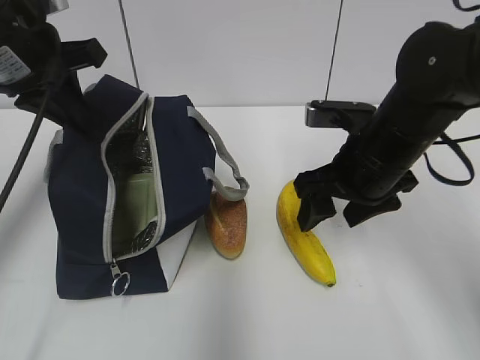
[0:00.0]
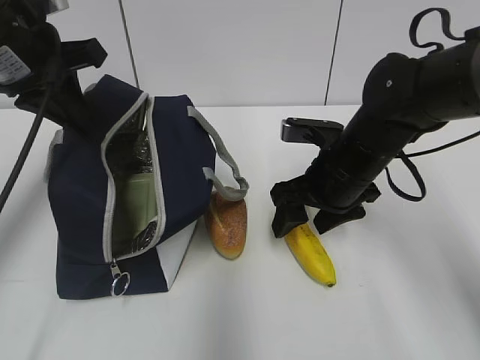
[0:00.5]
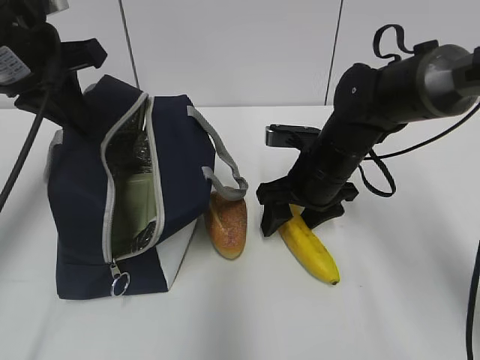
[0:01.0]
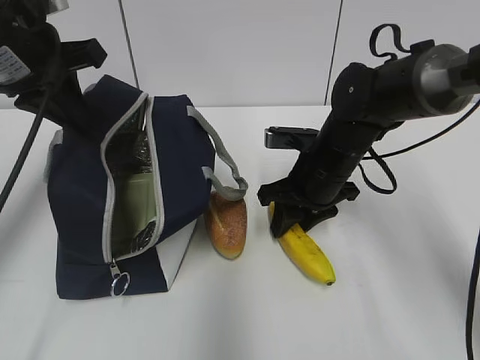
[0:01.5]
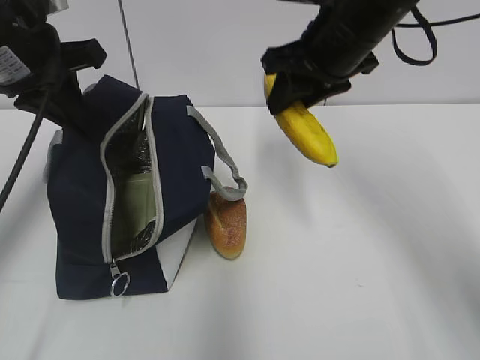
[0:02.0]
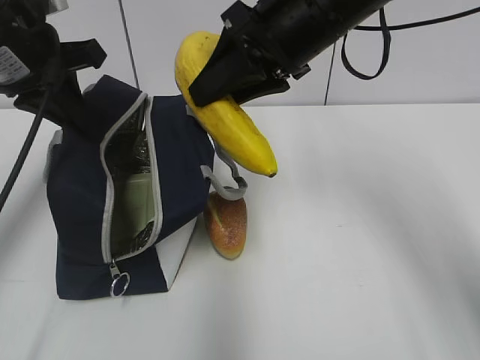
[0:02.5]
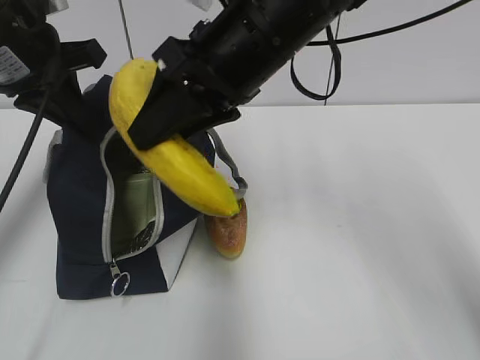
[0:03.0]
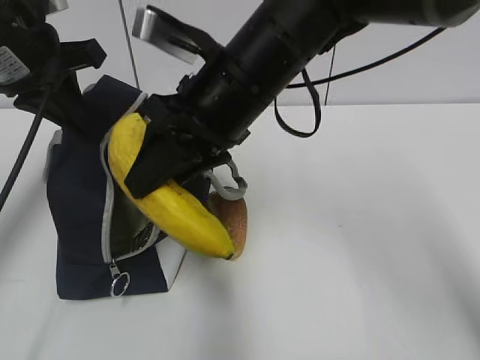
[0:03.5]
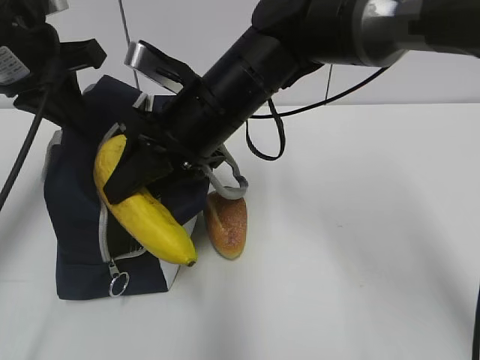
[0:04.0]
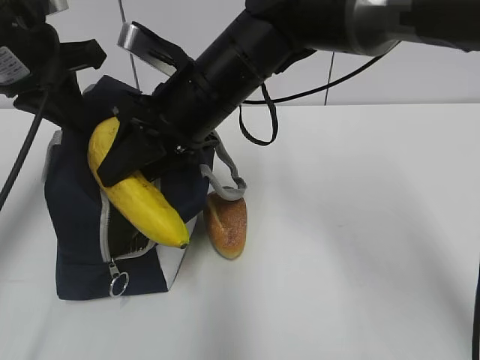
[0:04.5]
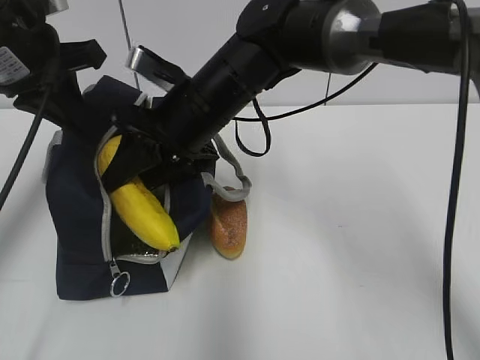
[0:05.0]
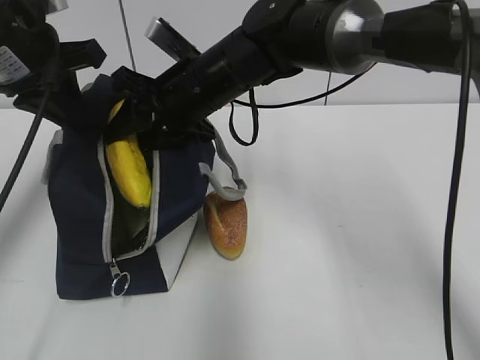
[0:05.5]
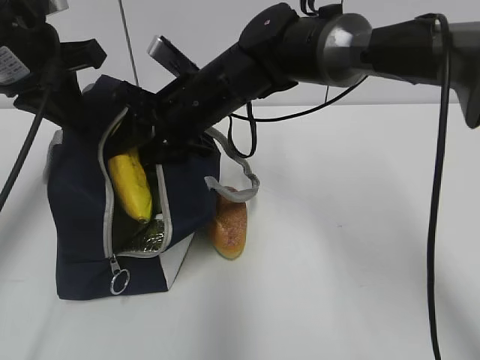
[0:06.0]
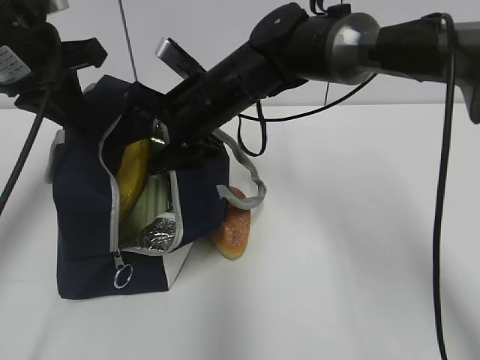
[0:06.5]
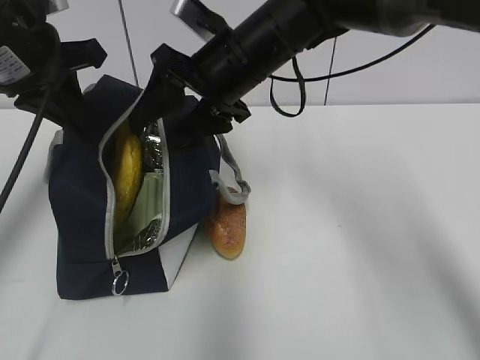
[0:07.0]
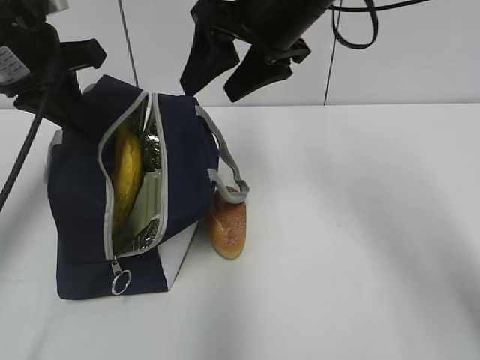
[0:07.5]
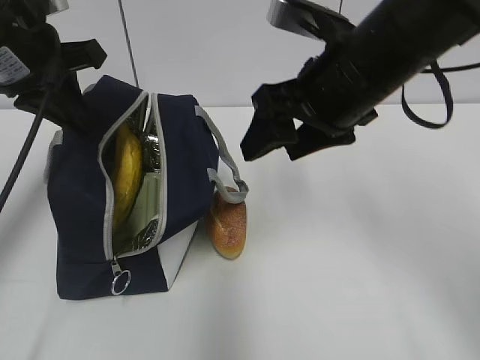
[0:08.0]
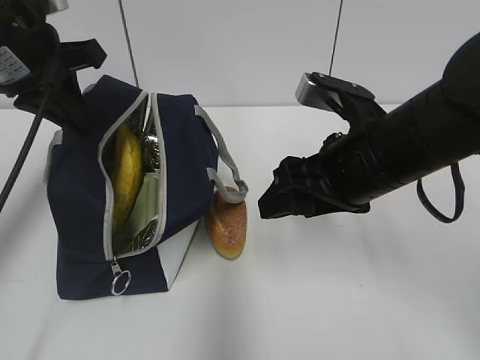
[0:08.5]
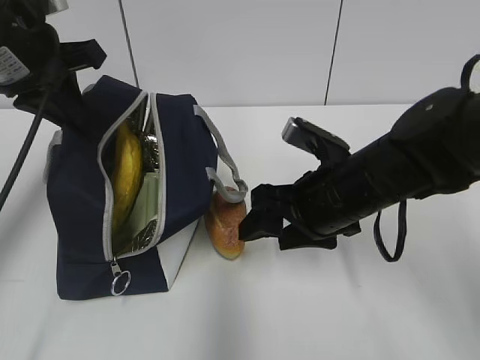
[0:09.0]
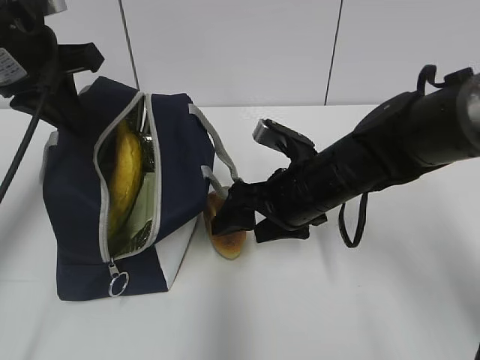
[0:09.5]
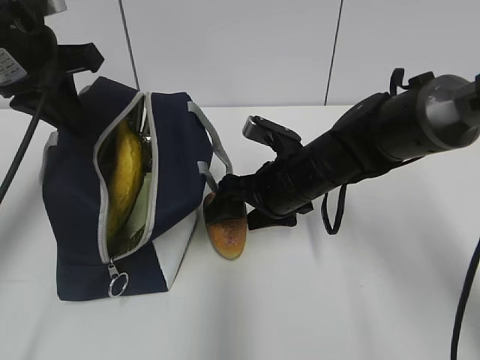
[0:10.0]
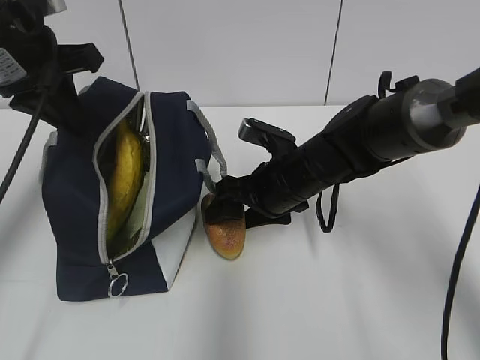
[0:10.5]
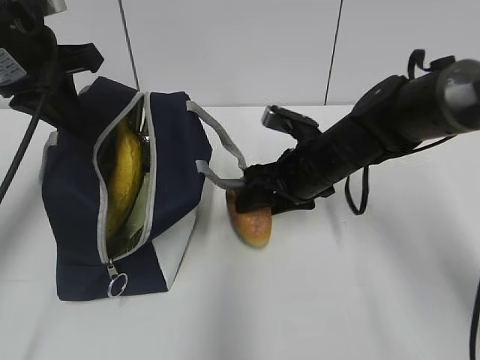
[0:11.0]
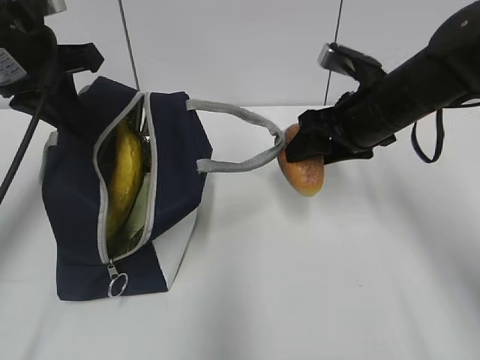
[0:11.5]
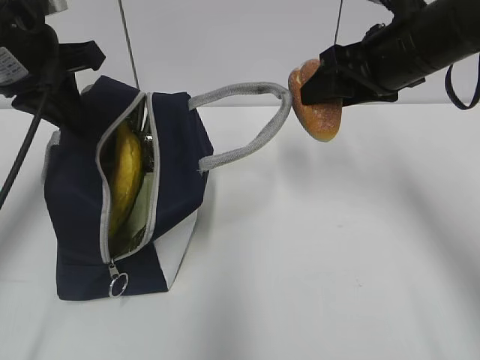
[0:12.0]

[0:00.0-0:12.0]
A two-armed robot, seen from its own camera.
0.0 to 2.0 s: The right gripper travels upward and forward by about 10 cm, and closes its fingers.
2.0 to 4.0 s: The right gripper travels to the left by roughly 15 cm.
4.0 to 6.0 s: The right gripper moves forward, about 5 cm.
6.0 to 8.0 s: The right gripper is displaced to the right, backward and upward by approximately 15 cm, and opens its fingers.
8.0 to 10.0 s: The right gripper travels downward by some 15 cm.
10.0 to 12.0 s: The right gripper goes about 20 cm upward and to the right.

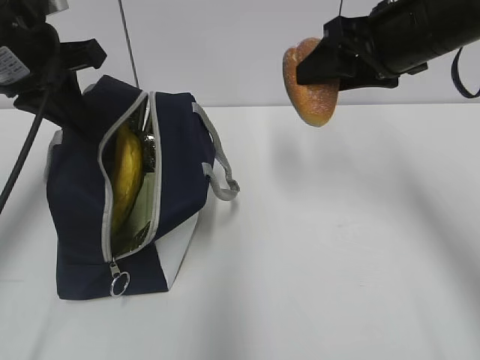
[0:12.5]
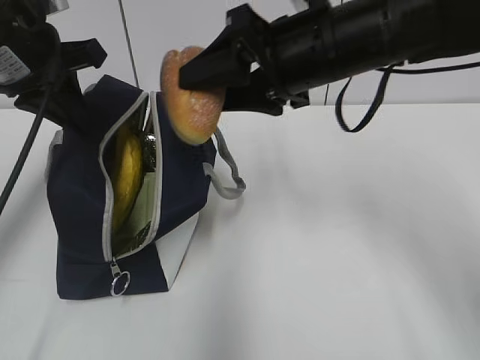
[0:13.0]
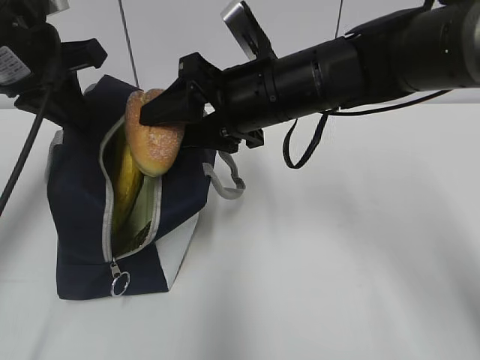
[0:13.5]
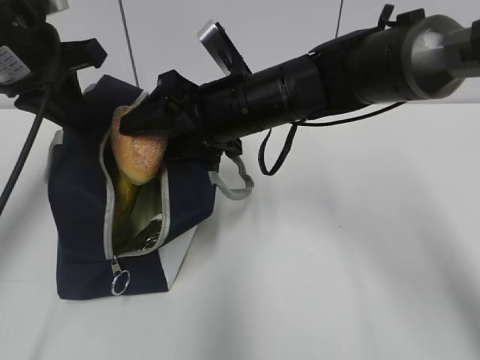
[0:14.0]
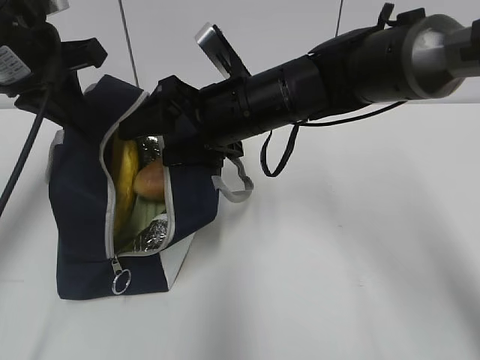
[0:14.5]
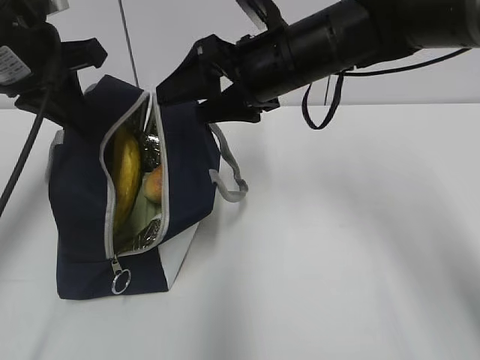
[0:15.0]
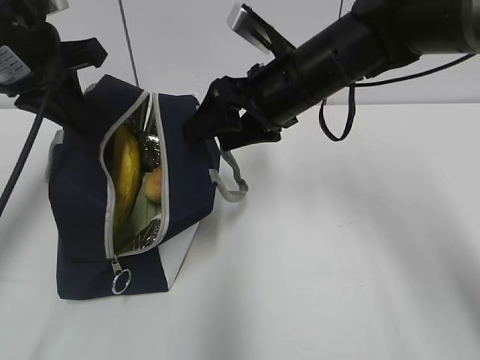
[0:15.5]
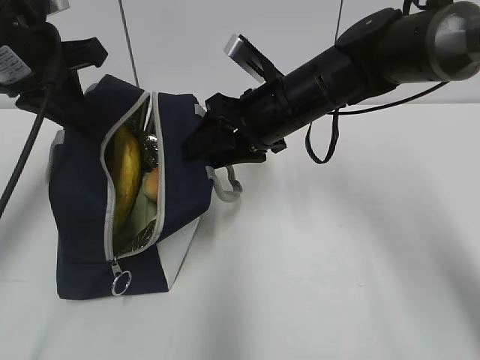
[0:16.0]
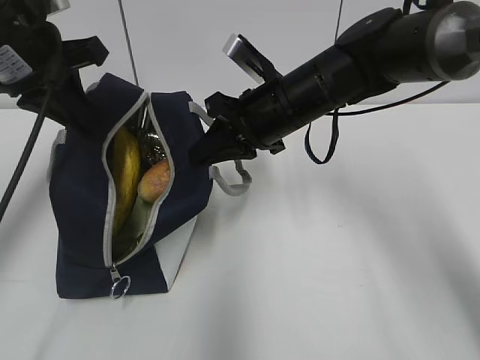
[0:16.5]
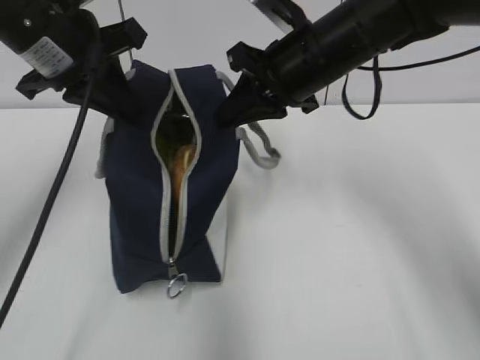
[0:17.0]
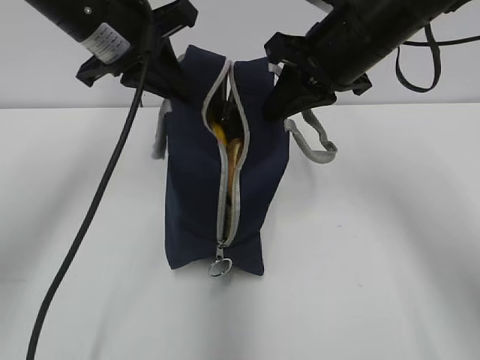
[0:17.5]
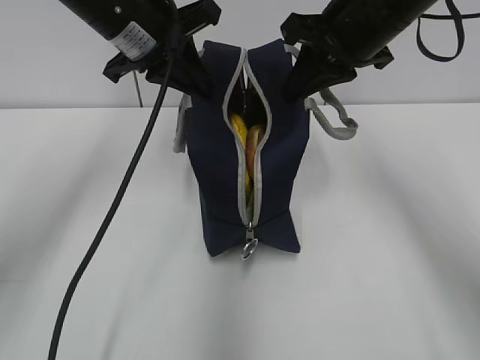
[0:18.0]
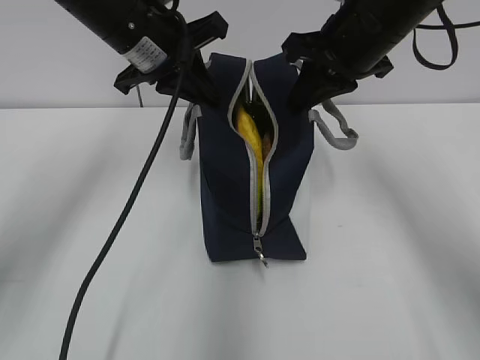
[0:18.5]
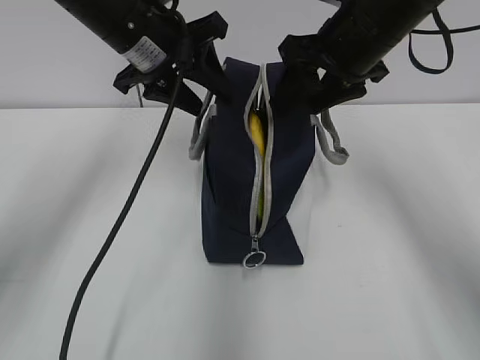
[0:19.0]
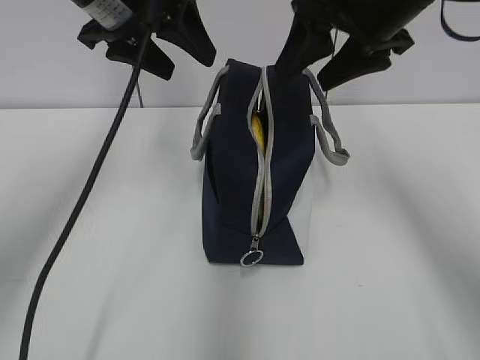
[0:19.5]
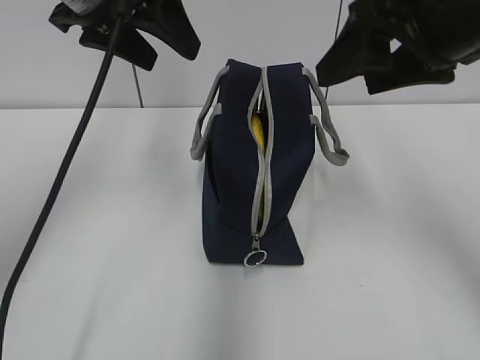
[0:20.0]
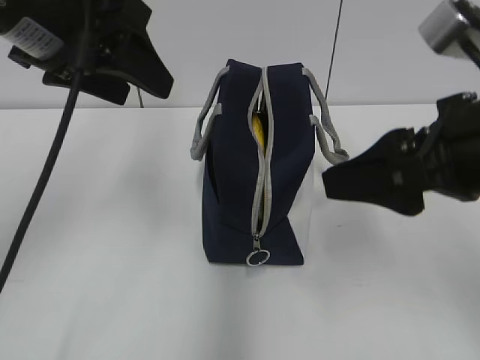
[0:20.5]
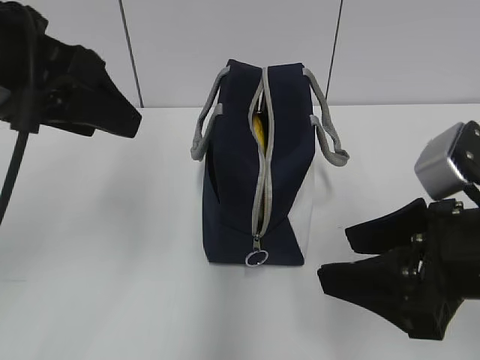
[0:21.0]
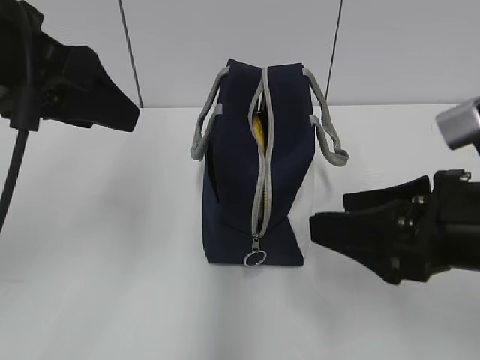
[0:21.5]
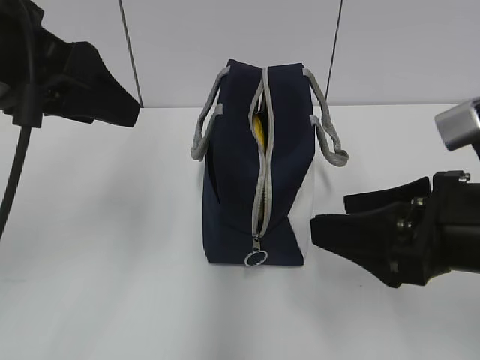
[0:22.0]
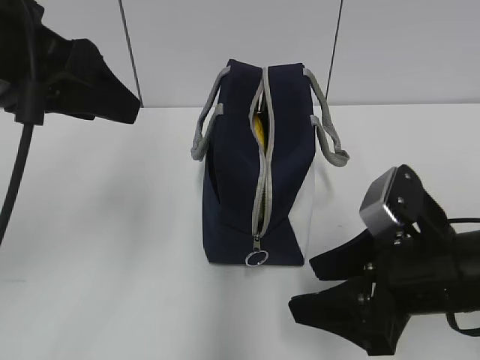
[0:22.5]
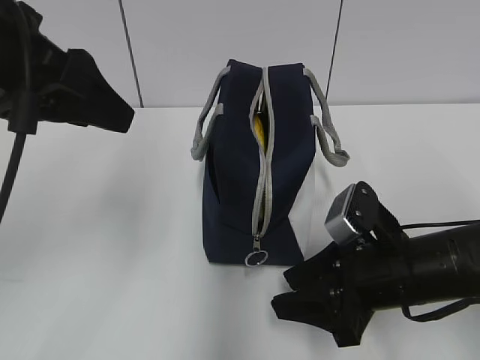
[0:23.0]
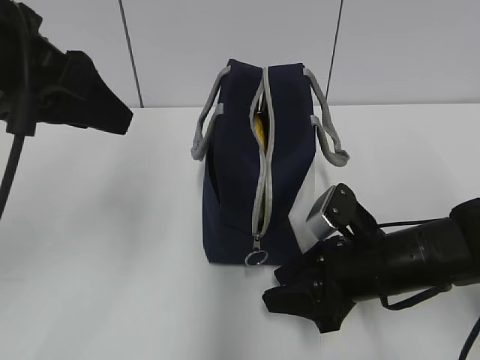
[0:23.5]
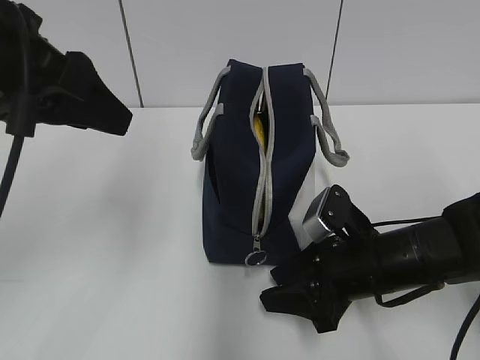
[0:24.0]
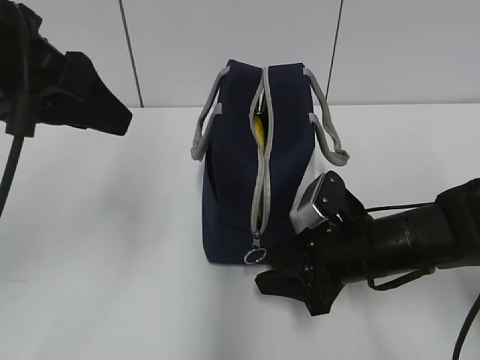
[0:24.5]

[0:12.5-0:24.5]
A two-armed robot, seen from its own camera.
12.5 to 14.5 s: The right gripper heads to the left and downward, covering some 15 cm.
14.5 to 16.5 s: The right gripper closes.
16.5 to 18.5 s: The left gripper travels to the right by approximately 10 cm. Meanwhile the right gripper heads upward and to the right, covering approximately 10 cm.
18.5 to 20.5 s: The left gripper shifts about 10 cm backward and upward, and opens; the right gripper is displaced backward by about 15 cm, and opens.
20.5 to 22.5 s: The left gripper shifts by approximately 5 cm. Meanwhile the right gripper goes roughly 15 cm downward.
22.5 to 24.5 s: The right gripper goes about 10 cm forward and downward.

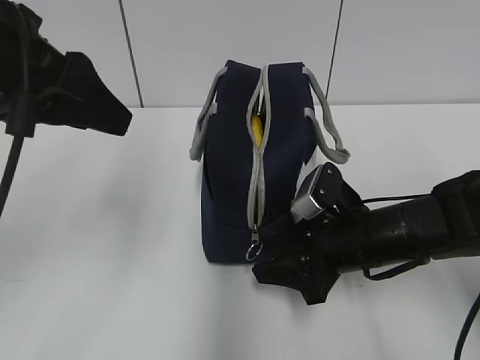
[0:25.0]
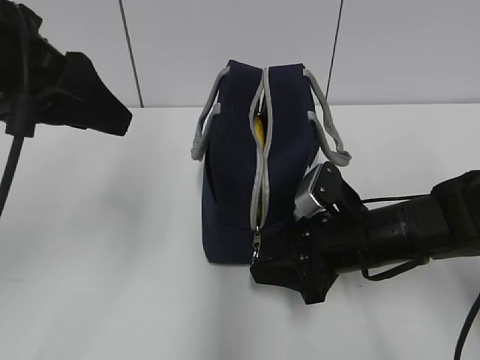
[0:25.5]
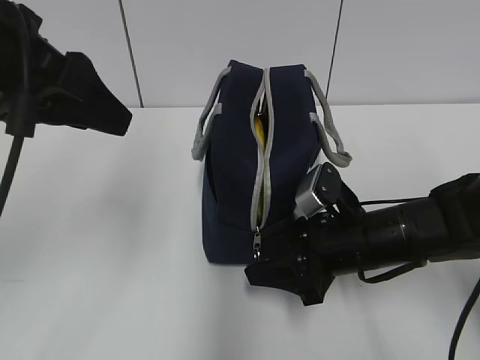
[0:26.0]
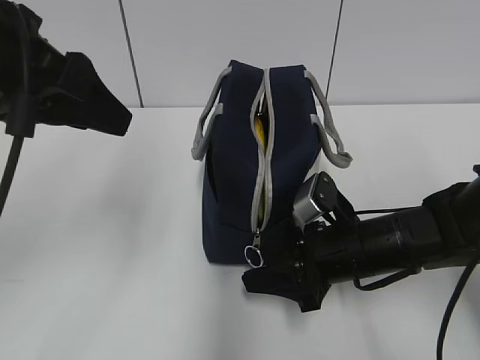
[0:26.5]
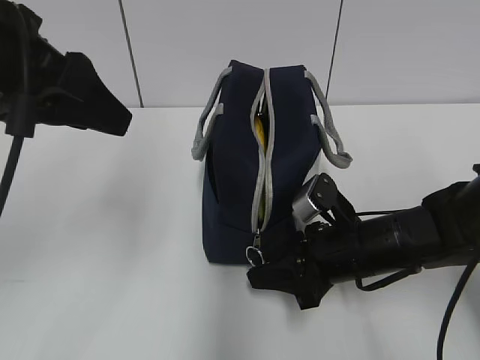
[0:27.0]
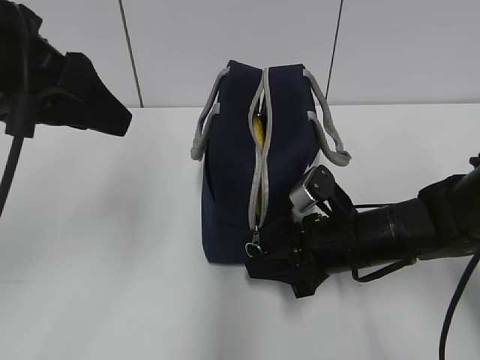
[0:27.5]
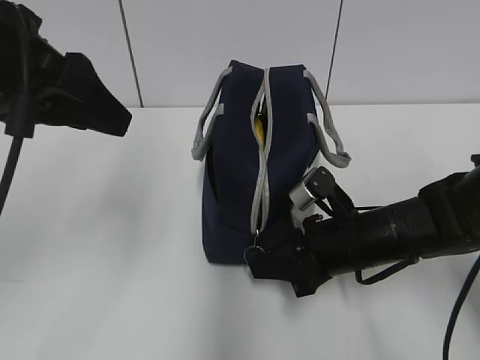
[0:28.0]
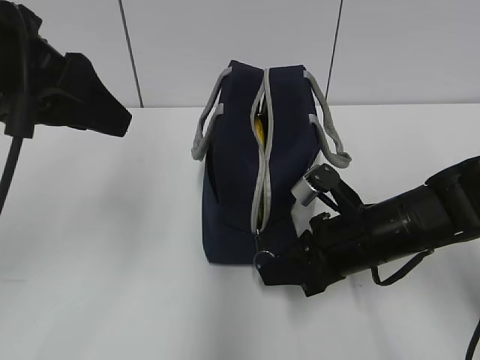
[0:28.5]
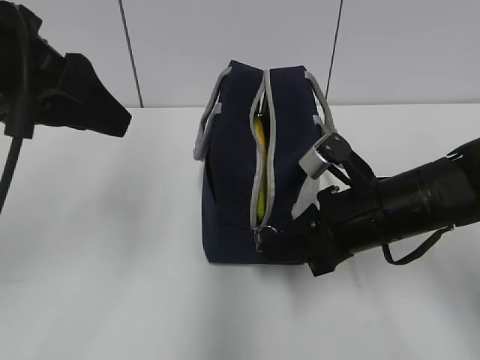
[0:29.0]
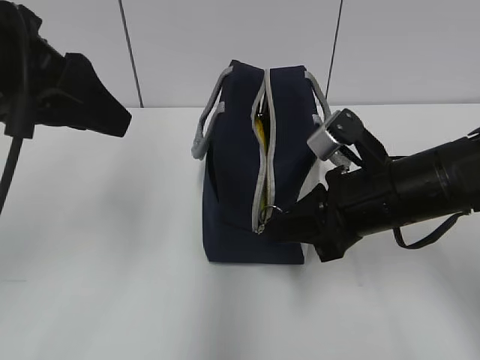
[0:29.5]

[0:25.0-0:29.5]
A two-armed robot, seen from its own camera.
25.0 to 27.0 s: The grippers stay close to where they were, moving slightly.
27.0 to 29.5 s: The right gripper travels upward by approximately 10 cm.
